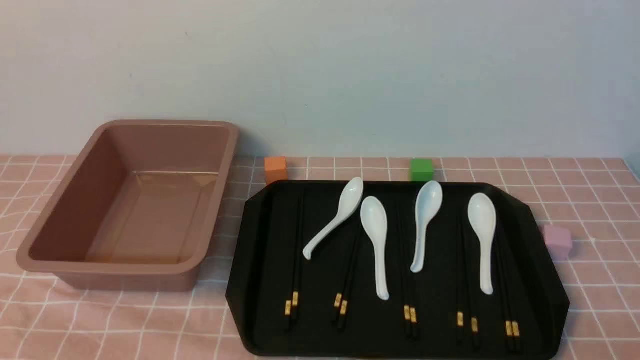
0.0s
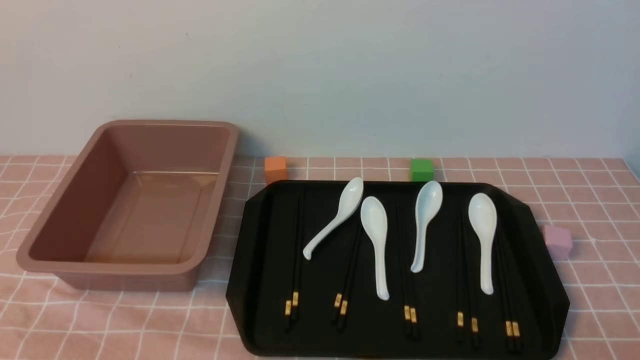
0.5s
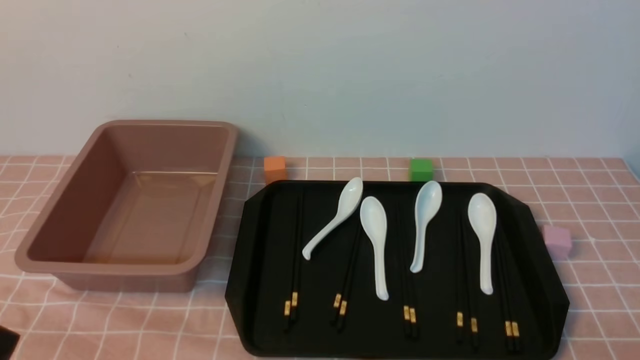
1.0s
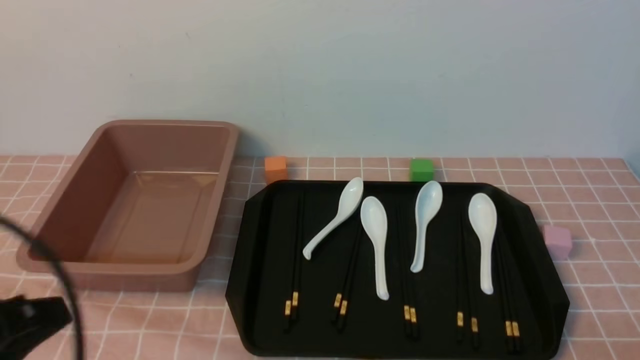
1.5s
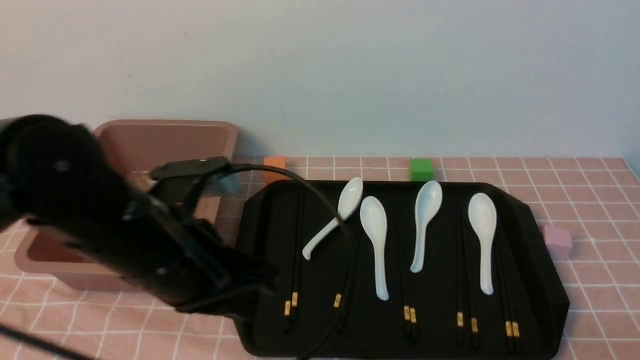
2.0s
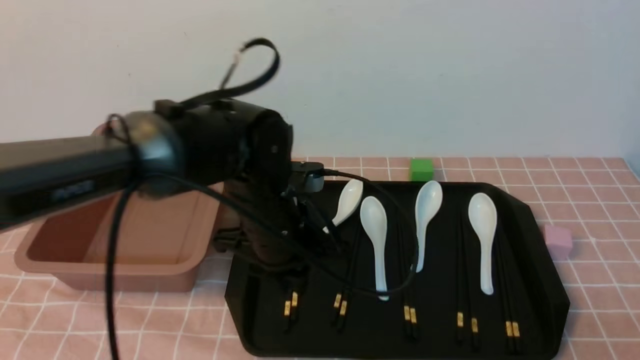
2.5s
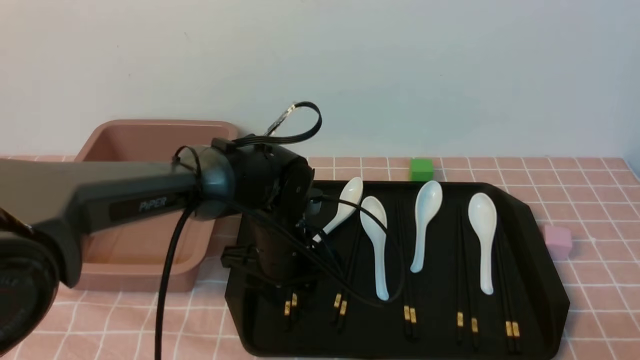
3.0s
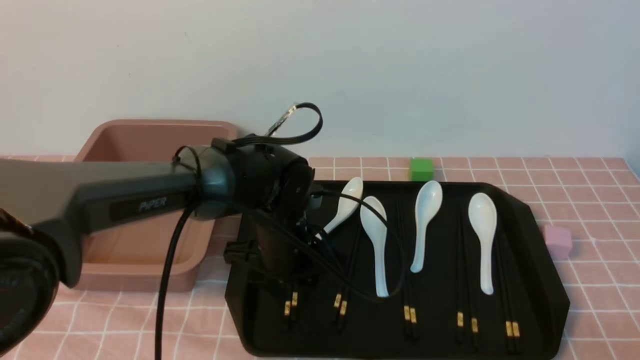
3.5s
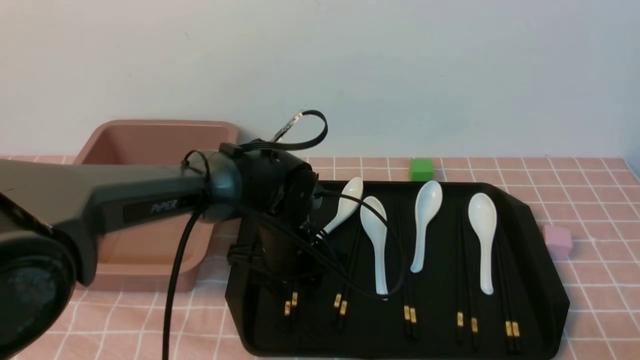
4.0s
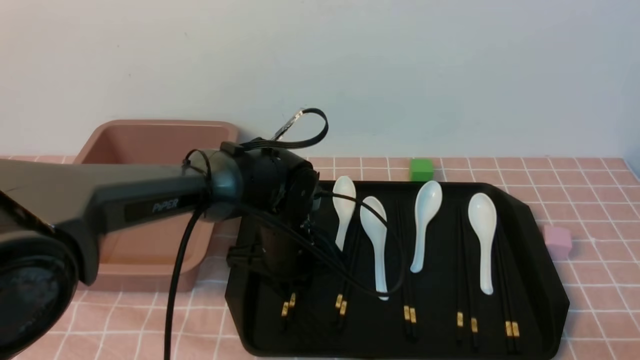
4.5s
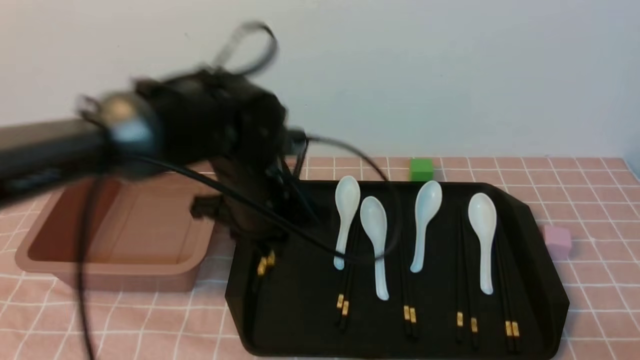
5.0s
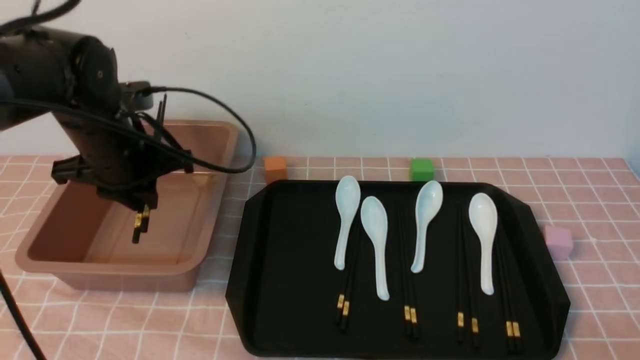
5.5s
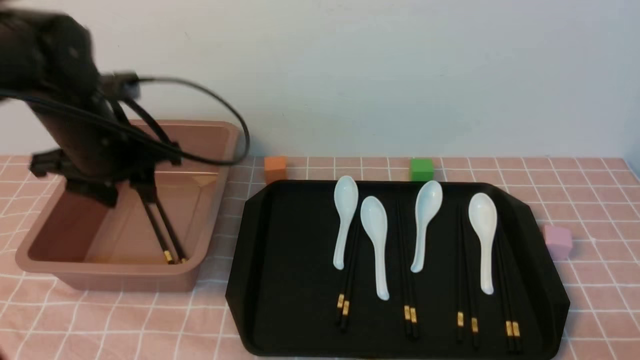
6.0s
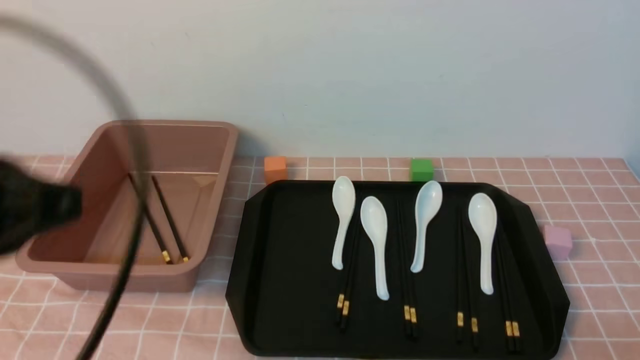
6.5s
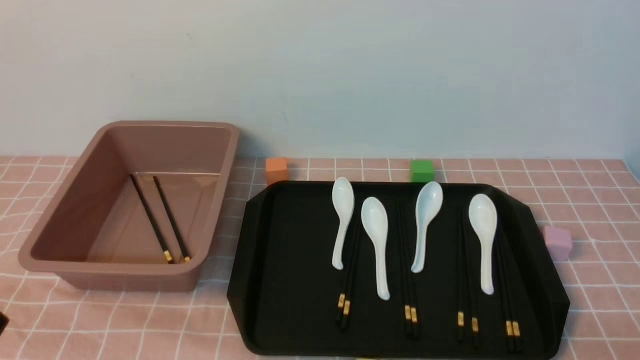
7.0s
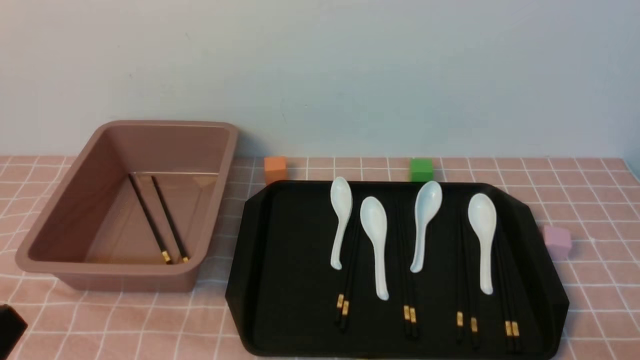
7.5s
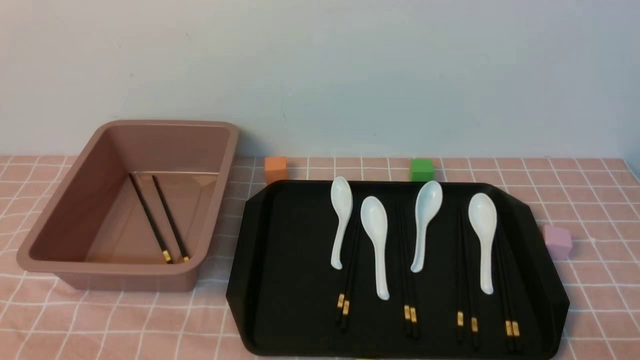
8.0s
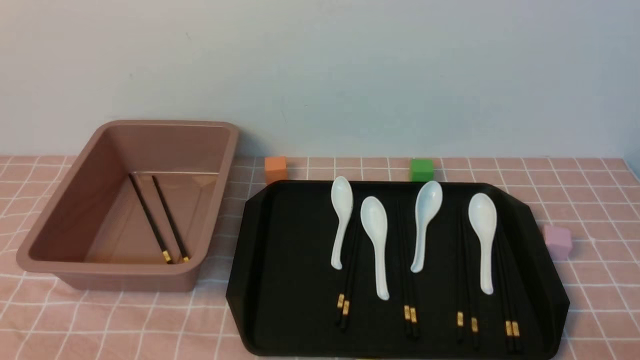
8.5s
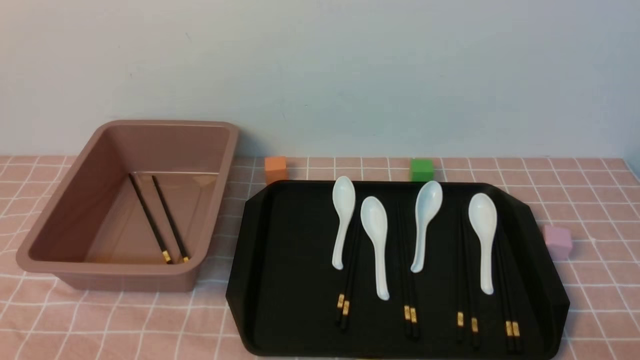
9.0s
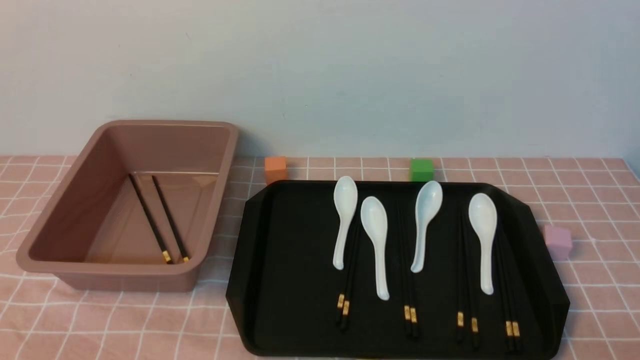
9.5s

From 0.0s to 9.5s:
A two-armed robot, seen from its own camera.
Step, from 0.0s to 5.0s: use the left arm to grab a pair of chopsticks.
Step, from 5.5s to 6.0s: use the left arm to put the chopsticks into the lunch box.
From 0.0s to 2.0s: The left gripper shifts approximately 25 cm forward, to the right and upward, and closes its fingers.
From 2.0s to 4.0s: The left gripper shifts about 20 cm downward, forward and to the right, and opens.
From 4.0s to 5.5s: The left gripper goes roughly 20 cm to the left and upward, and closes its fingers.
From 5.5s to 7.5s: The left gripper heads backward, covering some 35 cm, and closes up.
From 7.5s to 9.5s: The left gripper heads downward, covering roughly 10 cm.

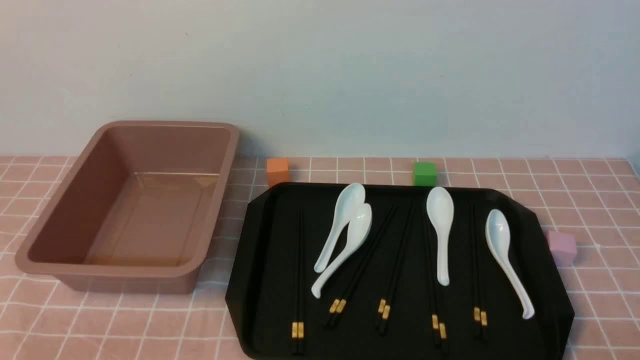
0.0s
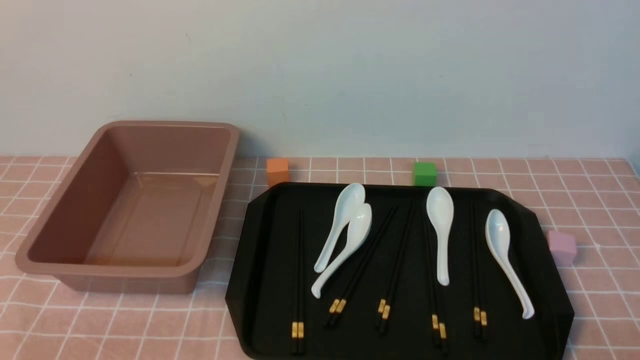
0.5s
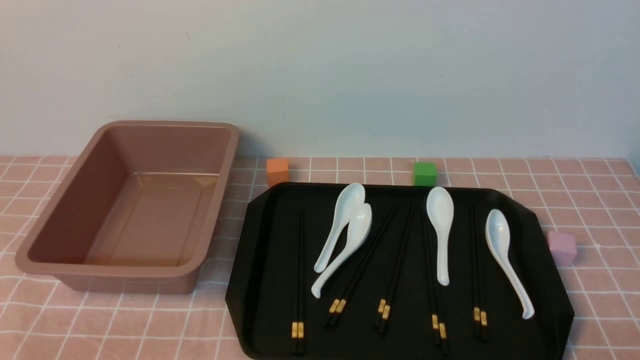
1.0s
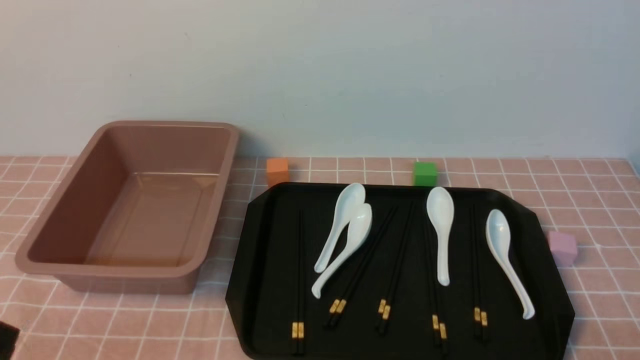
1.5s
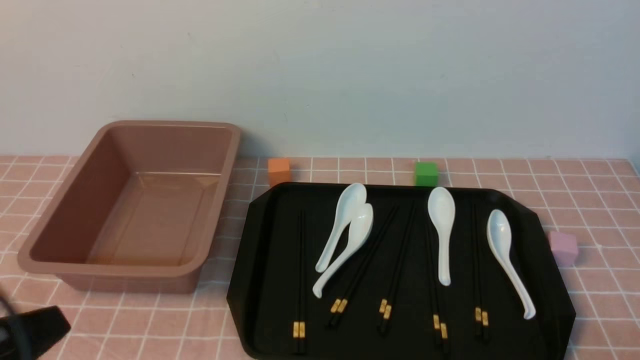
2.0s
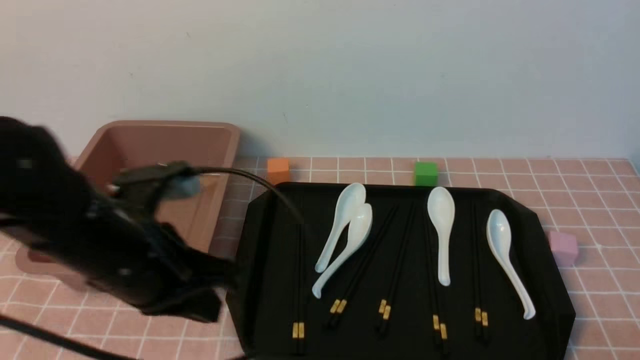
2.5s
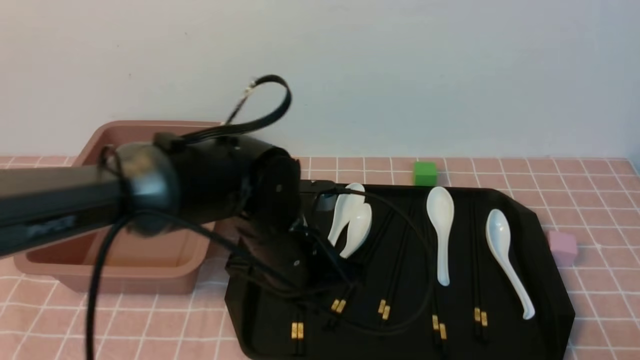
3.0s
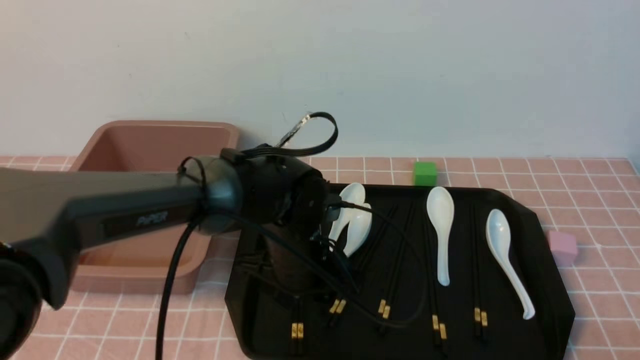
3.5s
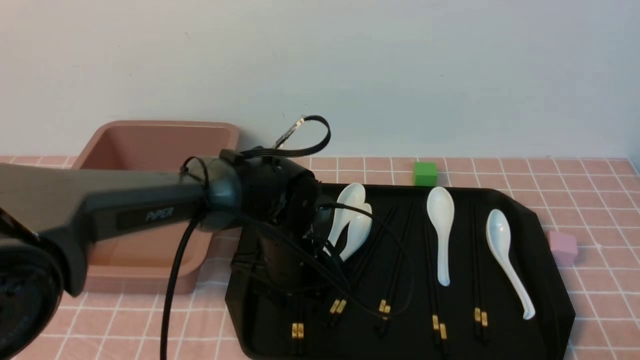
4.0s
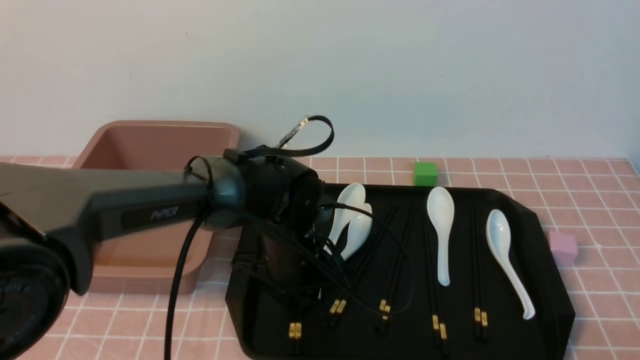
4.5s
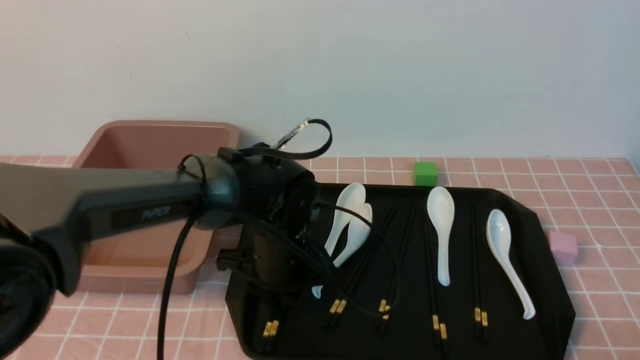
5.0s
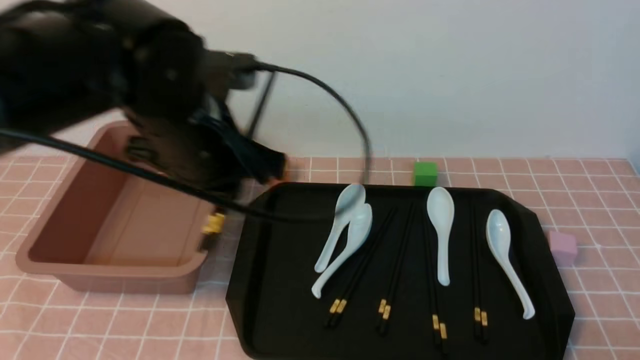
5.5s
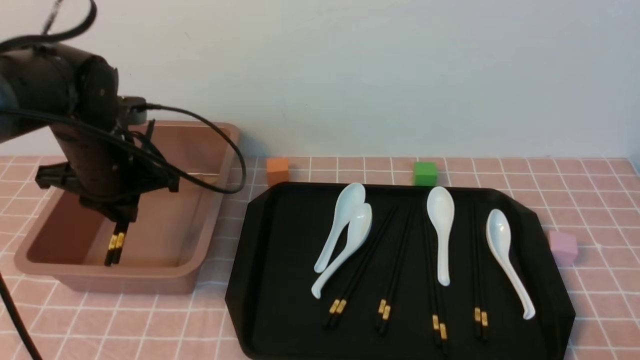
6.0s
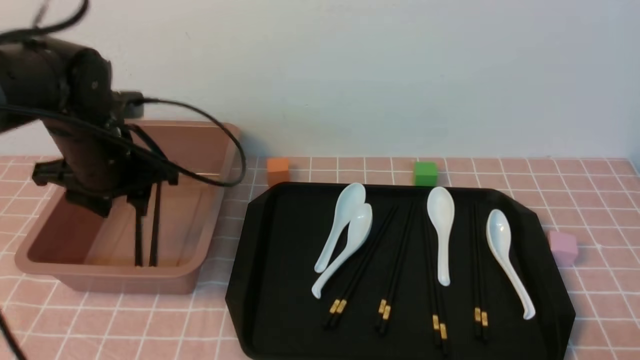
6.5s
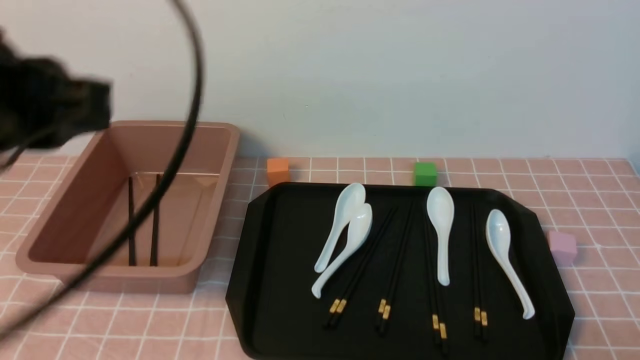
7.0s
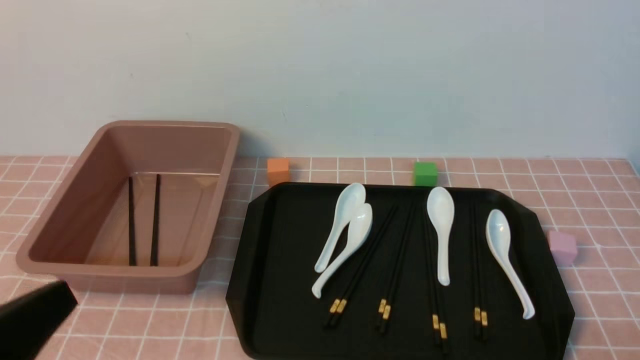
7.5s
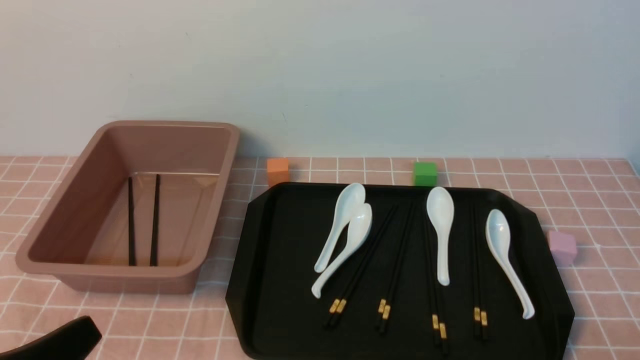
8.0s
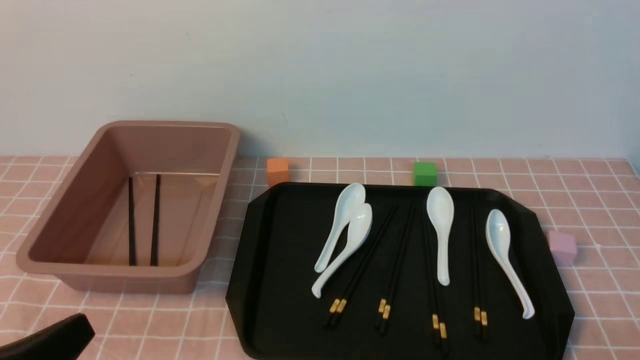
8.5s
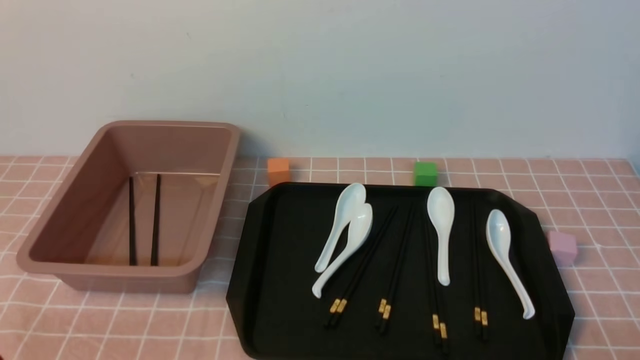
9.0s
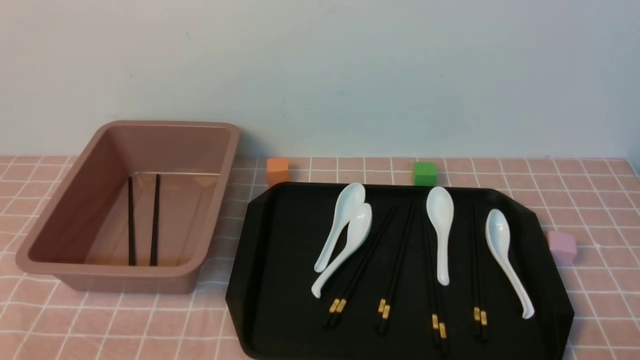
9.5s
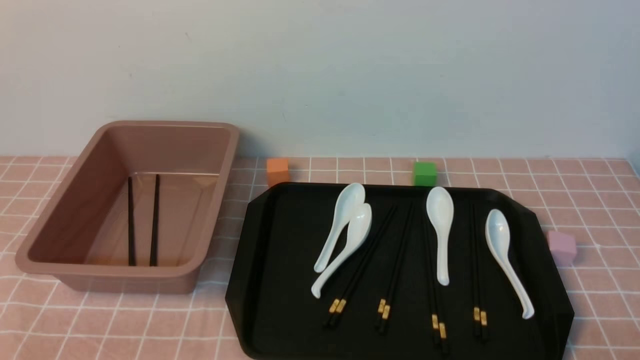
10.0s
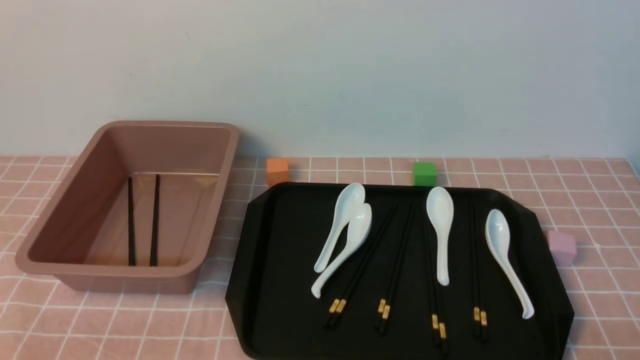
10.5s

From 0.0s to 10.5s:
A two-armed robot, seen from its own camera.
Step, from 0.0s to 5.0s: use the left arm to grab a pair of chopsticks.
Step, from 5.5s to 6.5s: use the left arm to put the chopsticks into the lunch box.
From 0.0s to 2.0s: The left gripper is displaced upward by approximately 10 cm.
From 2.0s to 4.0s: The left gripper moves forward, to the right and downward, some 35 cm, and opens up.
From 4.0s to 6.5s: The left gripper goes roughly 25 cm to the left and upward, and closes and opens again.
From 6.5s to 8.5s: The left gripper moves backward, about 30 cm, and closes.
From 8.5s to 10.5s: The left gripper shifts some 5 cm downward.
